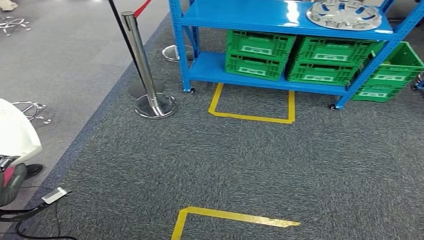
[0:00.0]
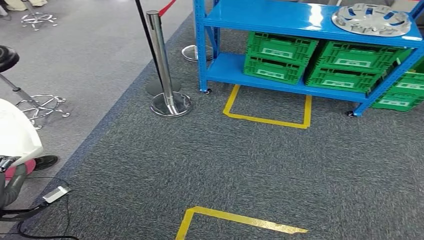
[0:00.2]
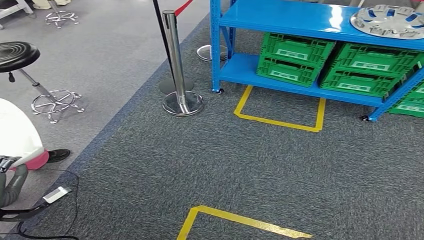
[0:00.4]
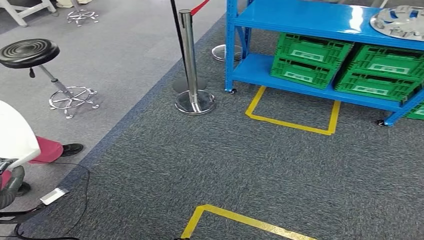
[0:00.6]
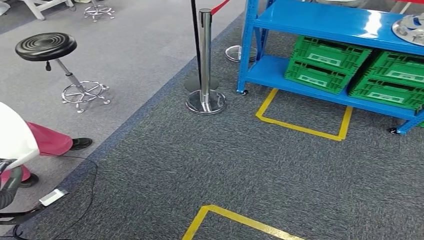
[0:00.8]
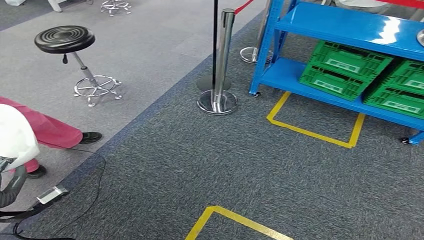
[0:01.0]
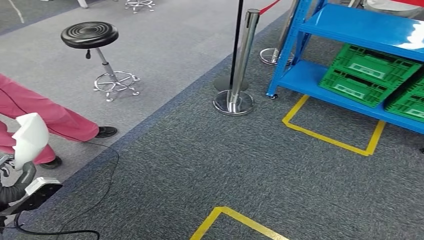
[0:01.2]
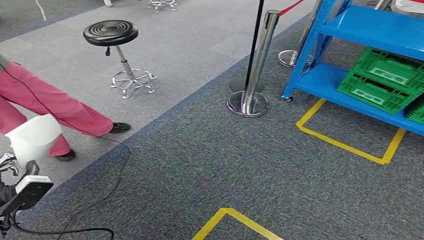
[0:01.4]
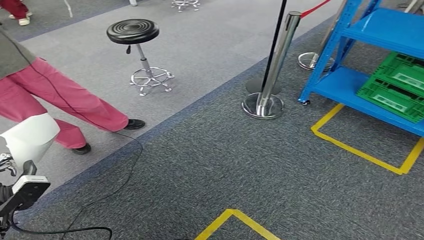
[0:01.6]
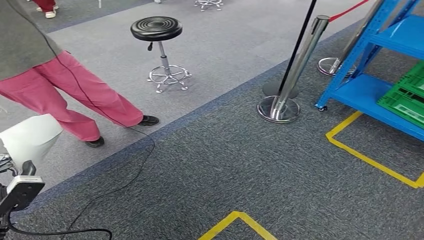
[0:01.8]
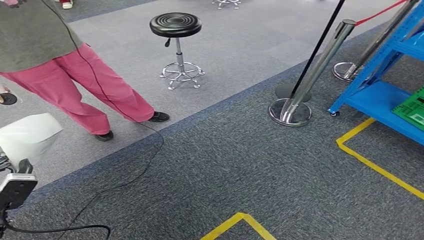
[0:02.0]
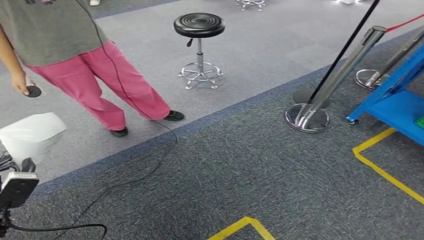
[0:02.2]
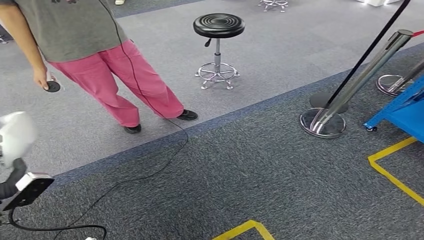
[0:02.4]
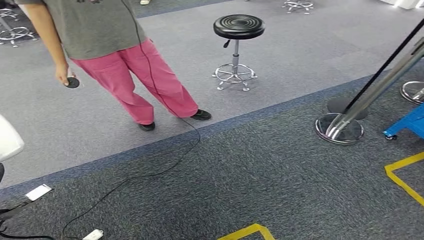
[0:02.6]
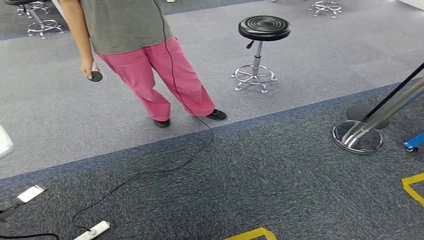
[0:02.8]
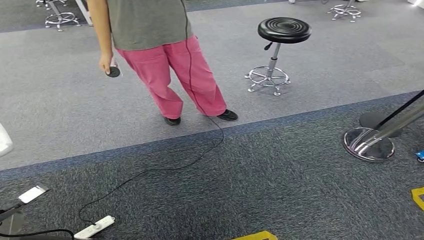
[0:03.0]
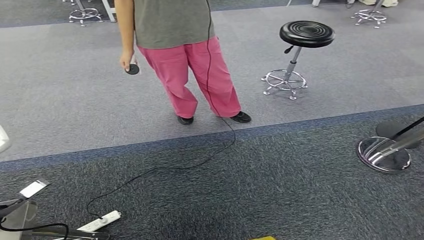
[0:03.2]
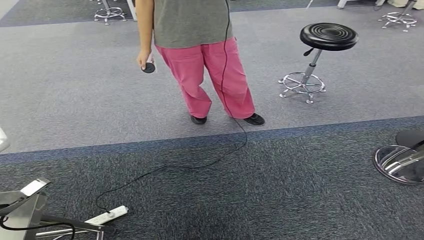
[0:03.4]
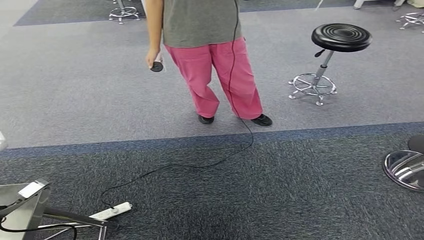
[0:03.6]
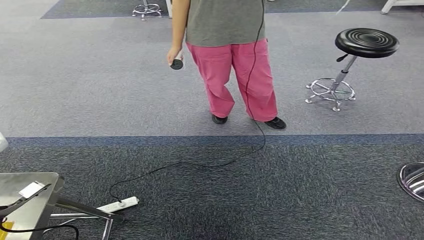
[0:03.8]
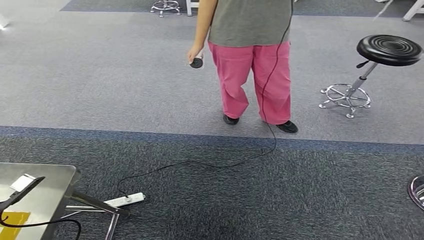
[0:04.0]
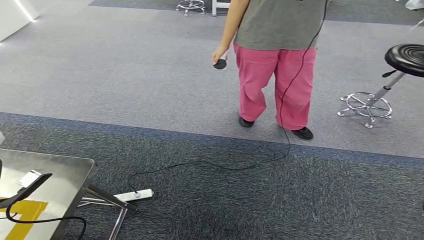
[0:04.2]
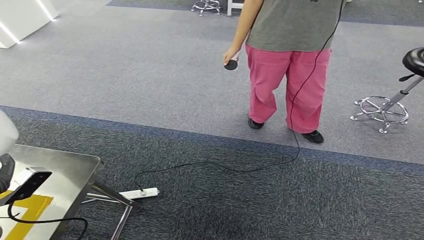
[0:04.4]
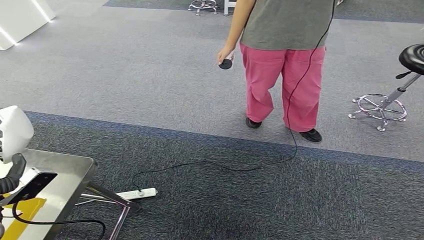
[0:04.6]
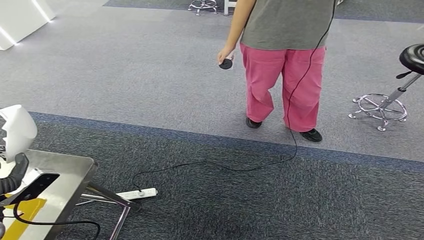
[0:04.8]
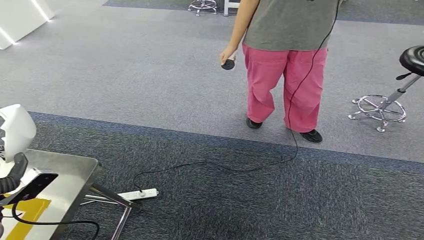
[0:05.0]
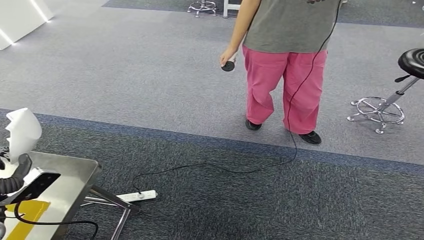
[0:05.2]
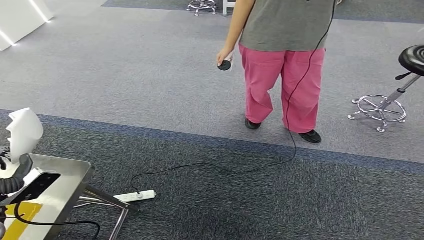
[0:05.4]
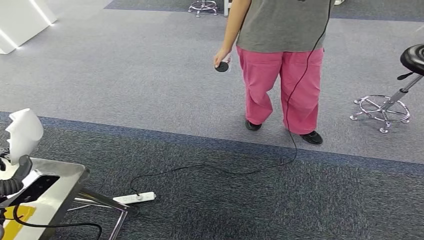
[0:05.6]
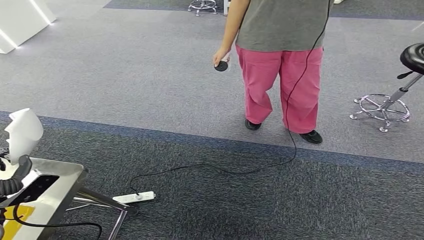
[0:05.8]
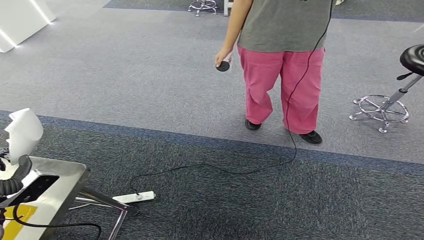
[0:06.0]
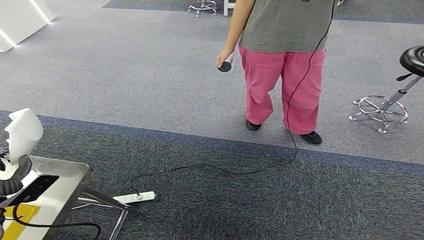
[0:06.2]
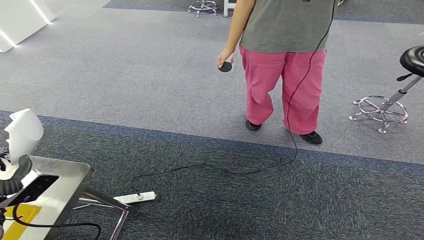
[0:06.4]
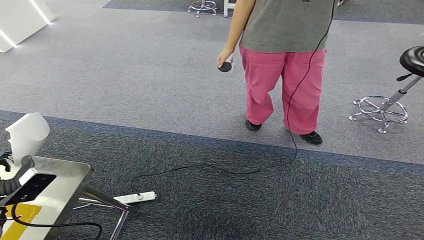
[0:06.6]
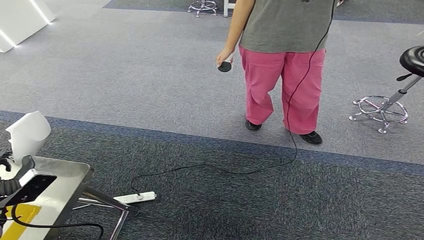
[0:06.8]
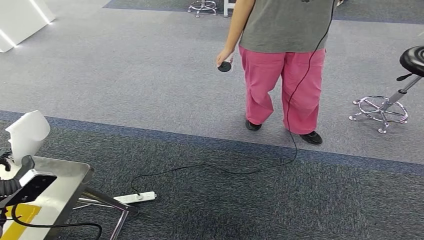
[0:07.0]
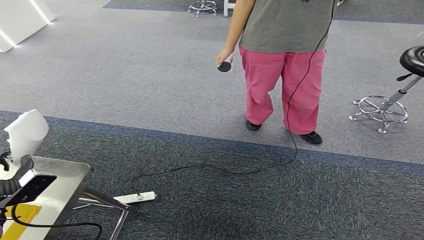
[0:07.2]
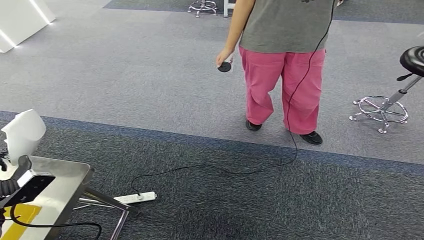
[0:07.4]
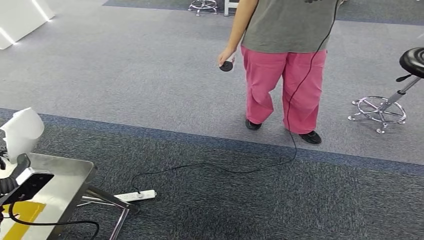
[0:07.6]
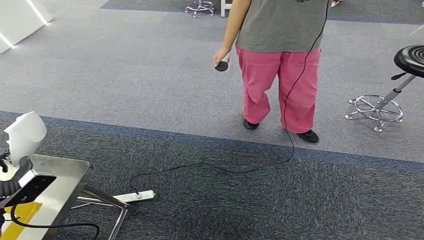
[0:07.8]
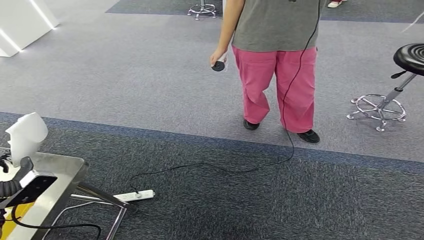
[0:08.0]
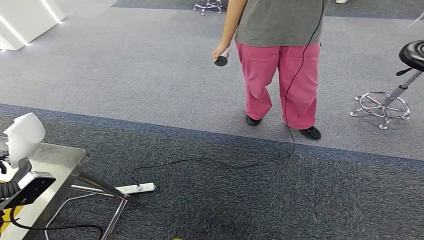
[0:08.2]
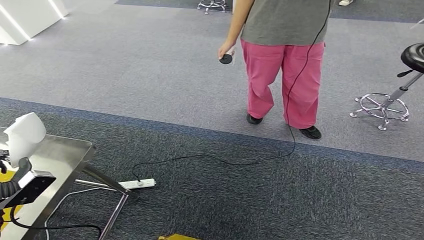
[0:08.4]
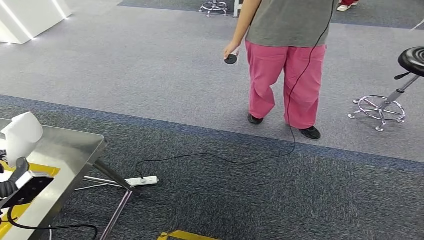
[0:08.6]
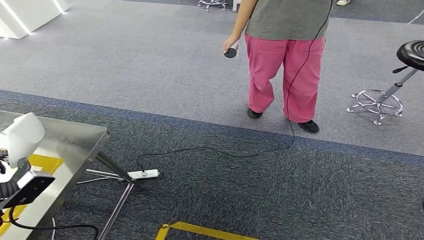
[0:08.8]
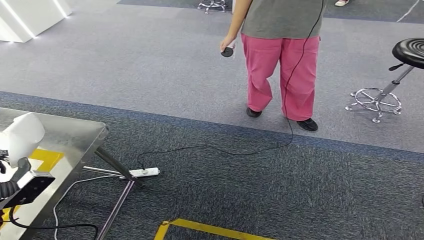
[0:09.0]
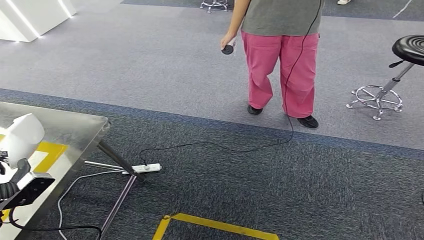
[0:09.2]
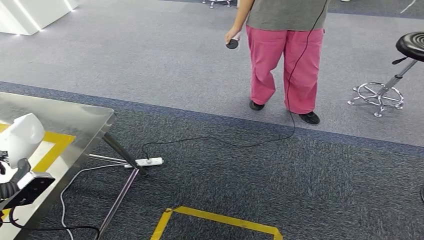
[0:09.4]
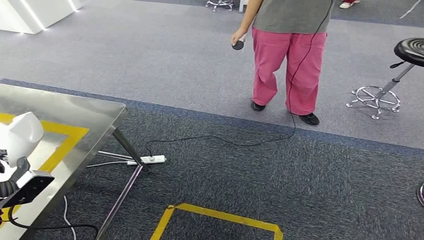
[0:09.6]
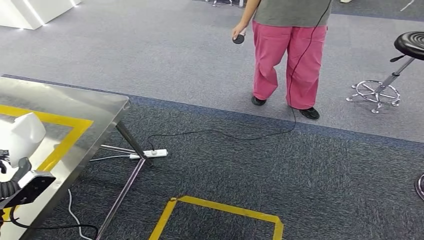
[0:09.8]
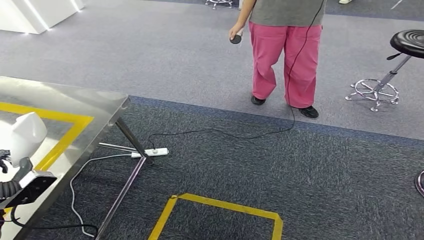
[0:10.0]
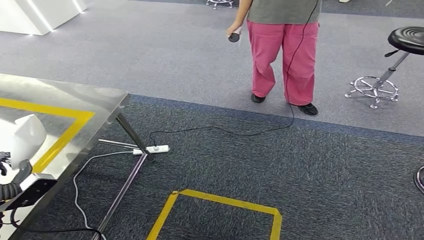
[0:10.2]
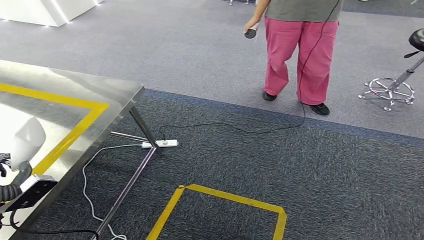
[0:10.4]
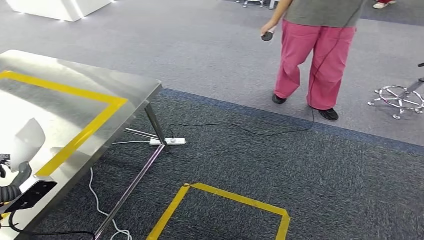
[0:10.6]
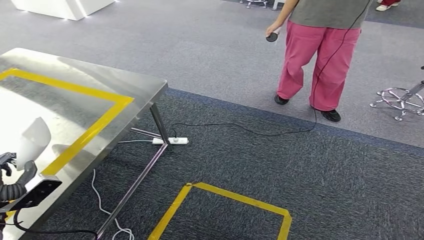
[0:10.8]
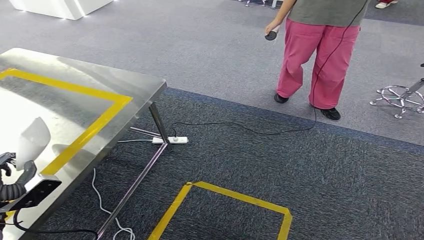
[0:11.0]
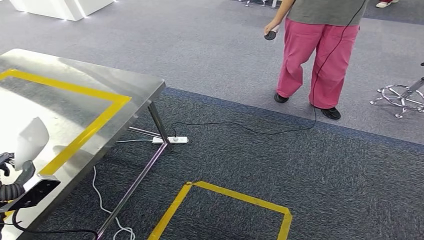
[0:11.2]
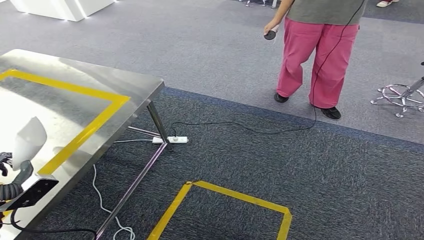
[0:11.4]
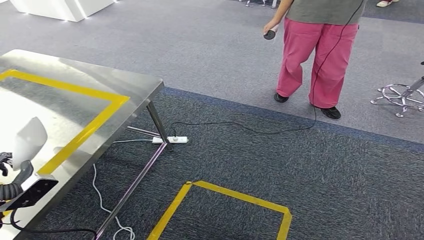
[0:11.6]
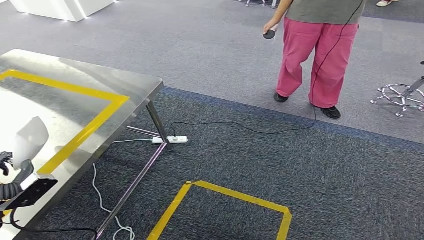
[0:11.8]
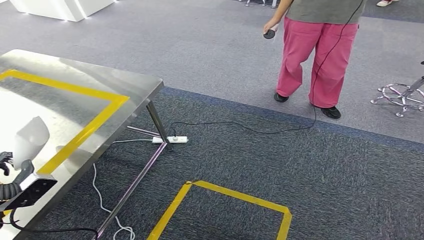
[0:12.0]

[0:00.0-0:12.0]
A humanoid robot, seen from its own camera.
0:04.4 to 0:07.6: The hands stay close to where they were, moving slightly.

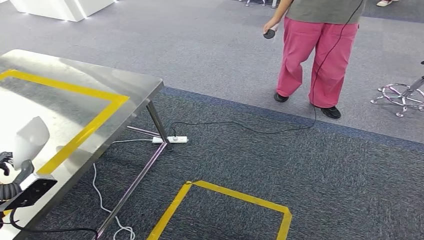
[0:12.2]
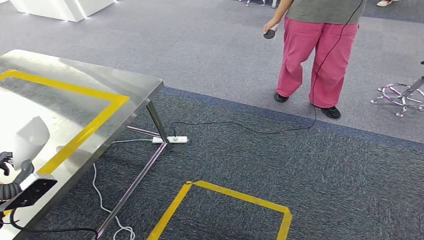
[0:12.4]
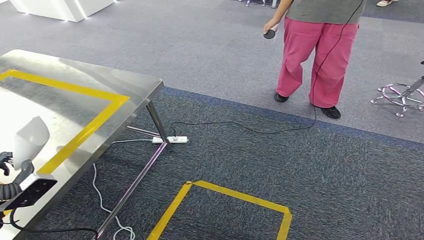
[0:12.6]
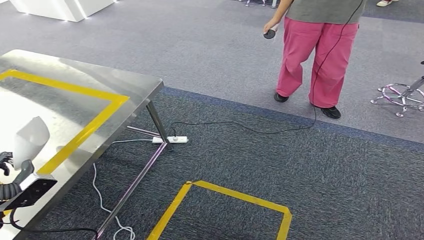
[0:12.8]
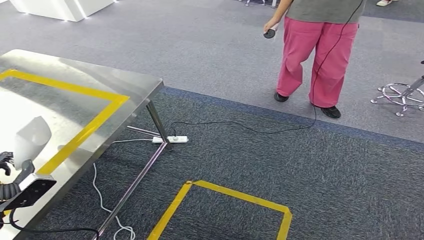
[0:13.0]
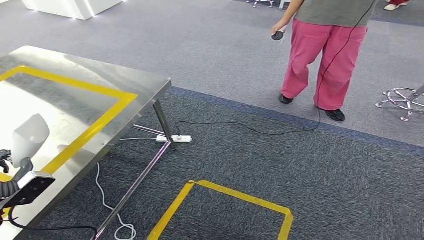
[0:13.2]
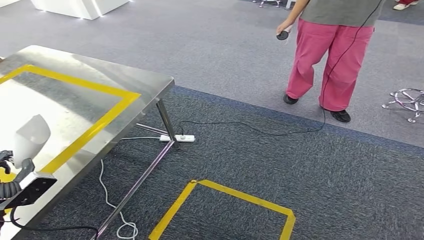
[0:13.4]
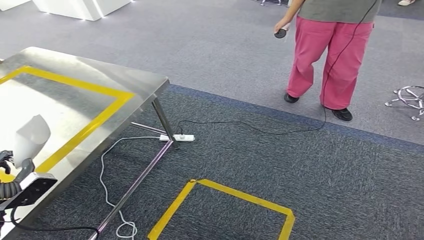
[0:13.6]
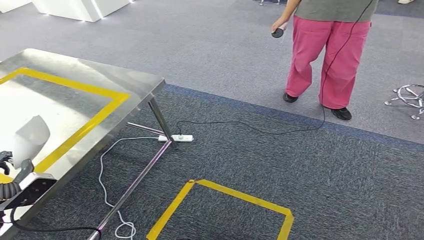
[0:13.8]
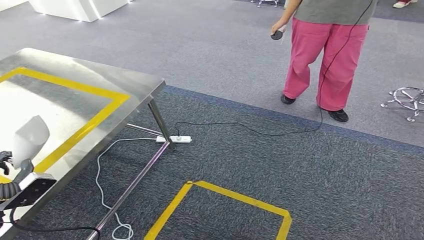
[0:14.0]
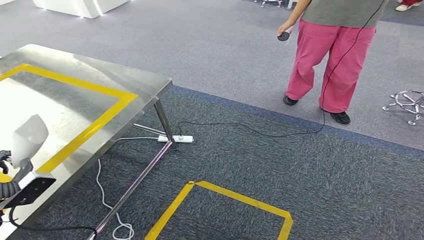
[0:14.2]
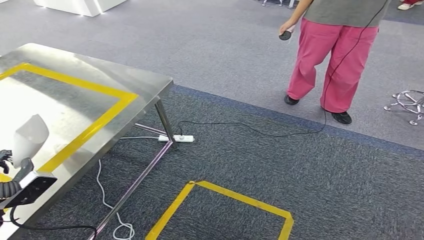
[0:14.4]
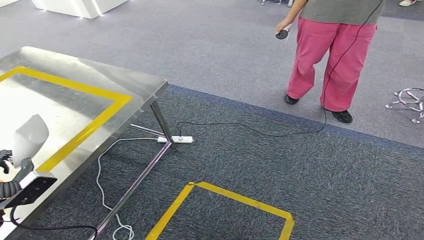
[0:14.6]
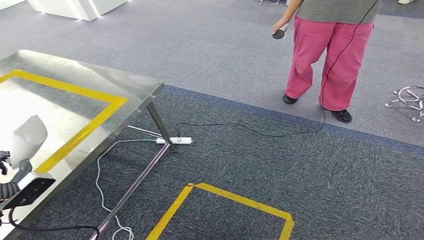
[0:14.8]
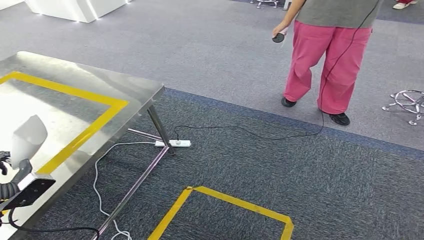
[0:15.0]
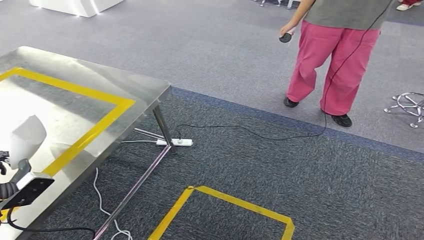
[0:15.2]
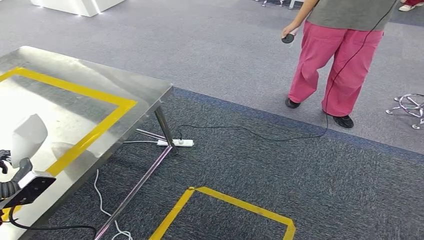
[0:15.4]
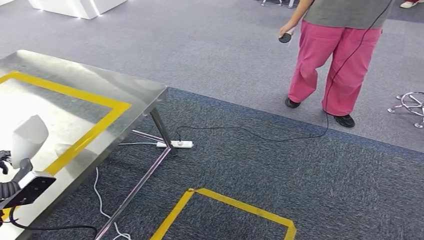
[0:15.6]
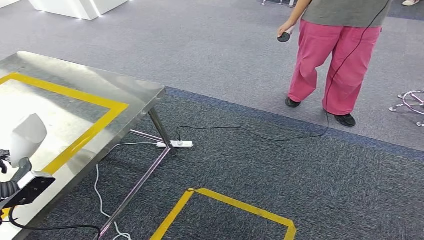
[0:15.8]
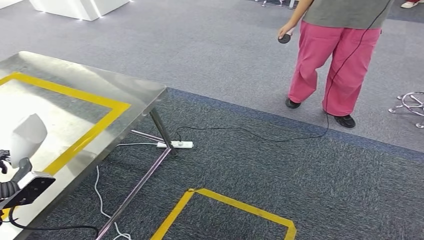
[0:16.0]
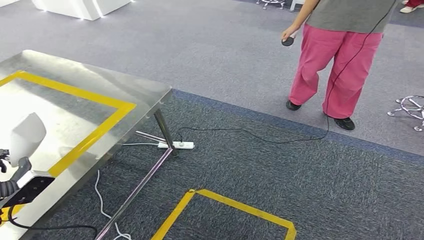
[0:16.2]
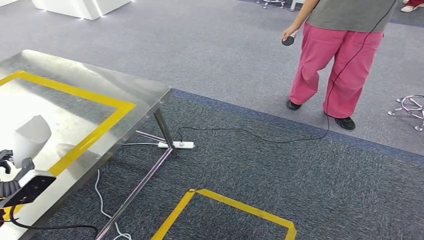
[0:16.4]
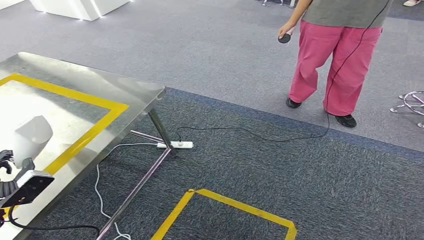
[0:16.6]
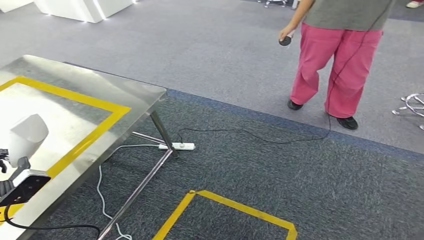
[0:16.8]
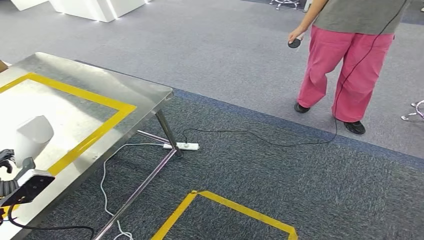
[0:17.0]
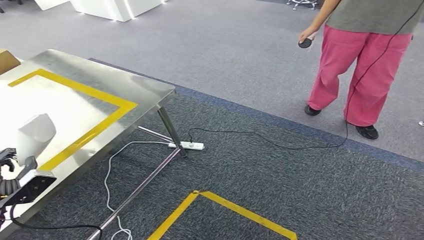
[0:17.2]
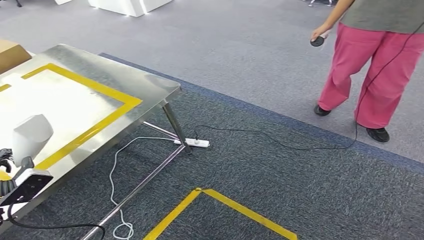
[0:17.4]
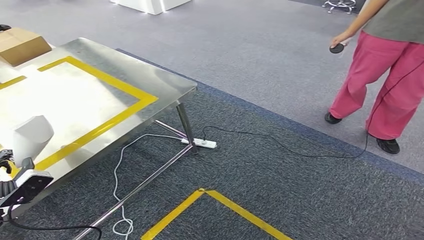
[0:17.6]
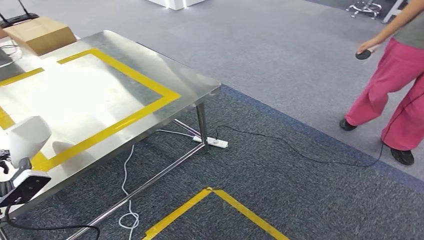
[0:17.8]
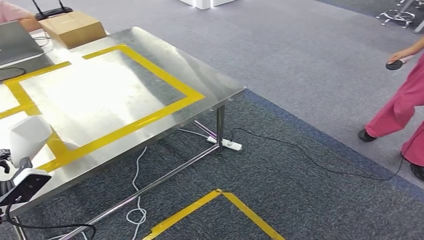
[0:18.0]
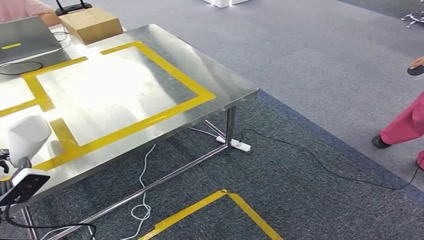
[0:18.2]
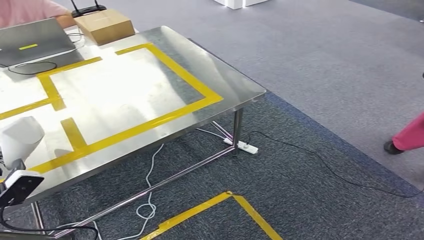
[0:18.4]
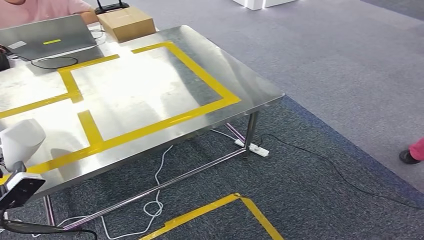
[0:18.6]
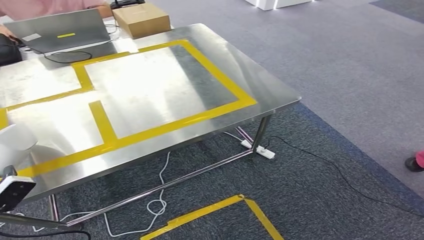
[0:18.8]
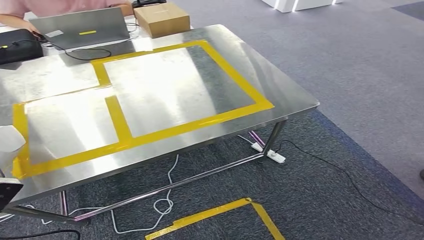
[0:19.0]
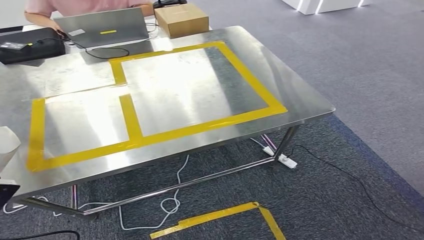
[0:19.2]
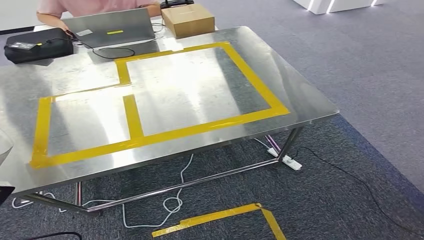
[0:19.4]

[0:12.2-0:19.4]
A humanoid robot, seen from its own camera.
Step, 0:12.2 to 0:15.0: Move the small component to the workbench.
0:12.2 to 0:16.6: Neither hand changes place.
